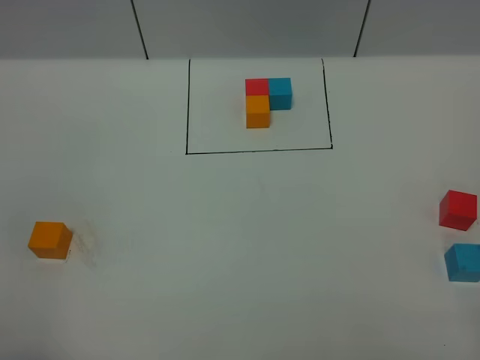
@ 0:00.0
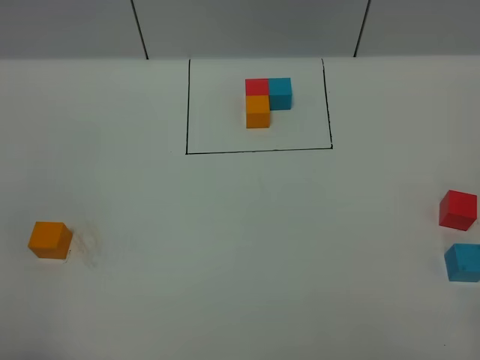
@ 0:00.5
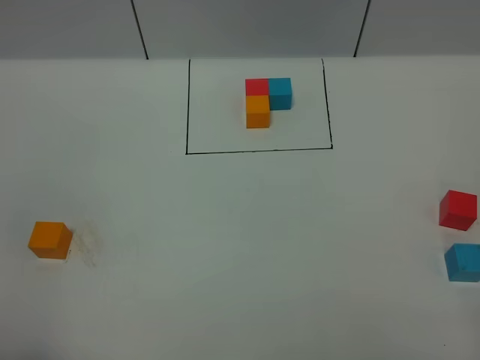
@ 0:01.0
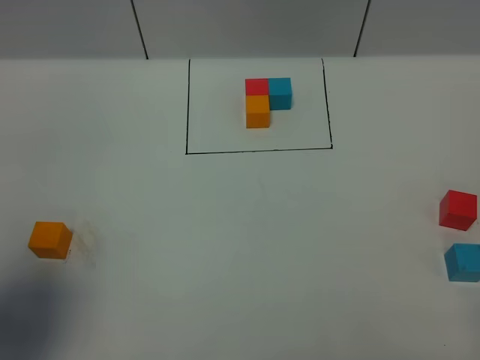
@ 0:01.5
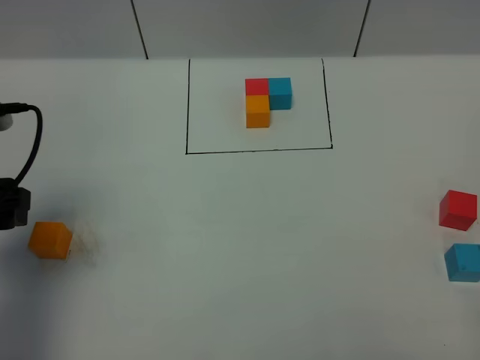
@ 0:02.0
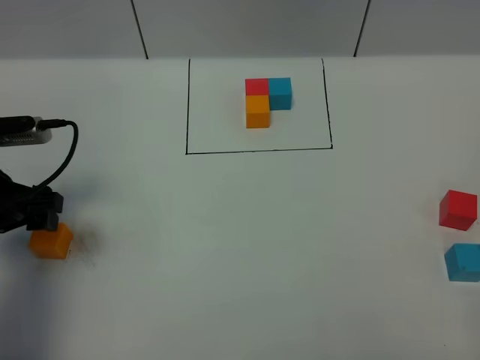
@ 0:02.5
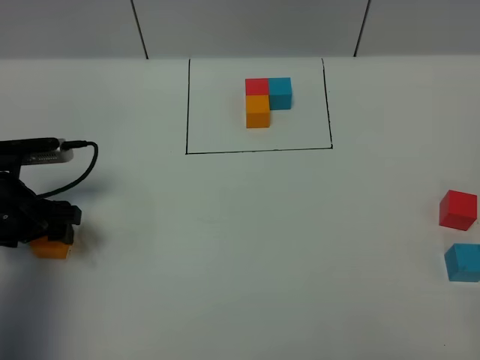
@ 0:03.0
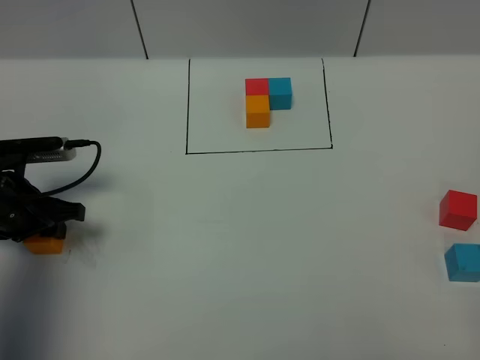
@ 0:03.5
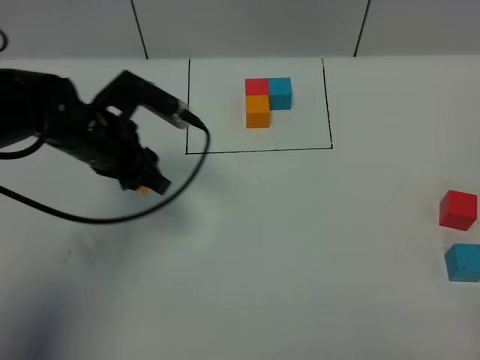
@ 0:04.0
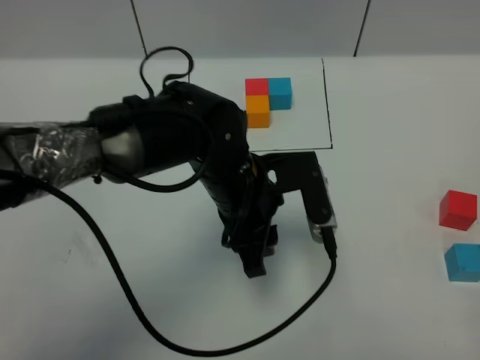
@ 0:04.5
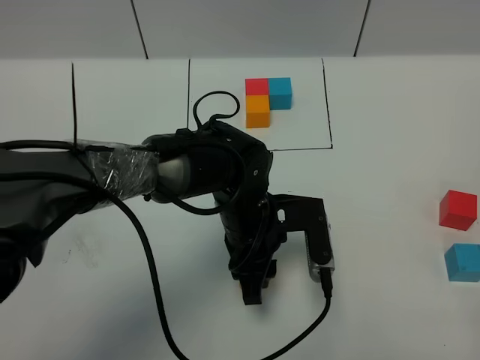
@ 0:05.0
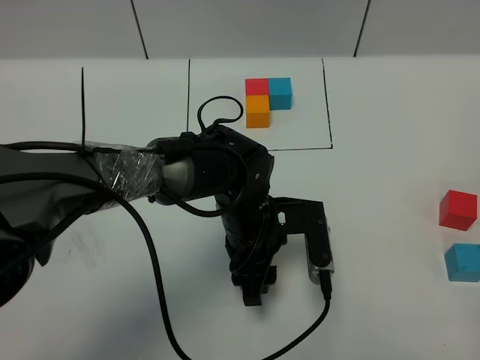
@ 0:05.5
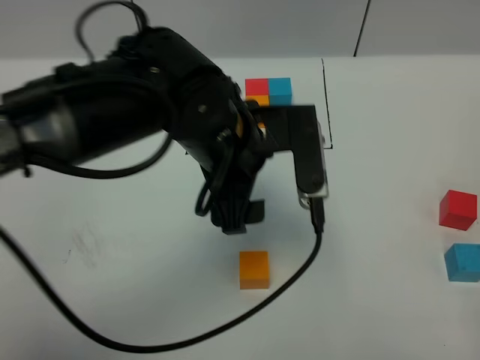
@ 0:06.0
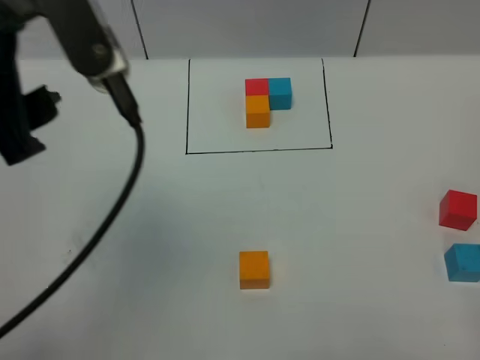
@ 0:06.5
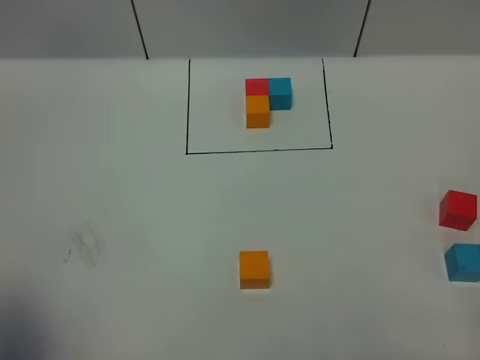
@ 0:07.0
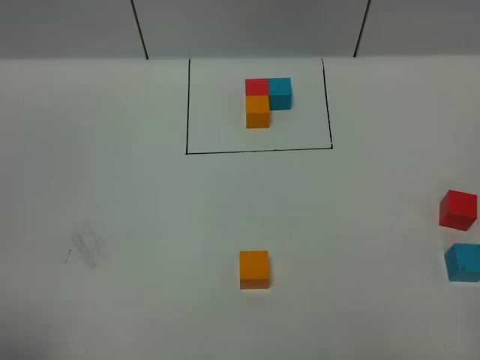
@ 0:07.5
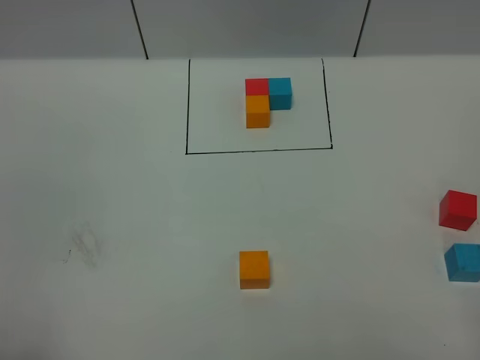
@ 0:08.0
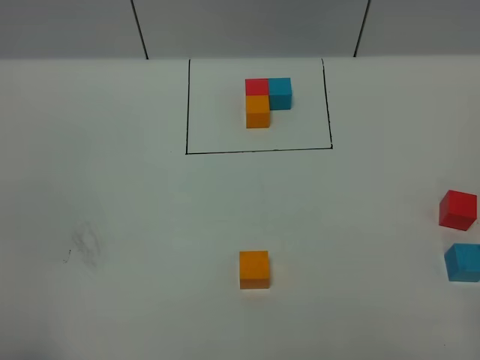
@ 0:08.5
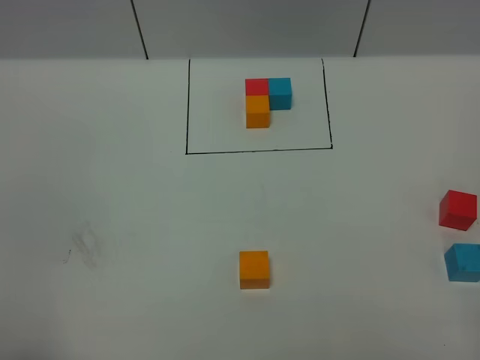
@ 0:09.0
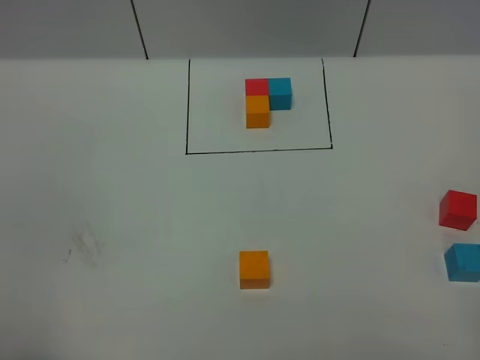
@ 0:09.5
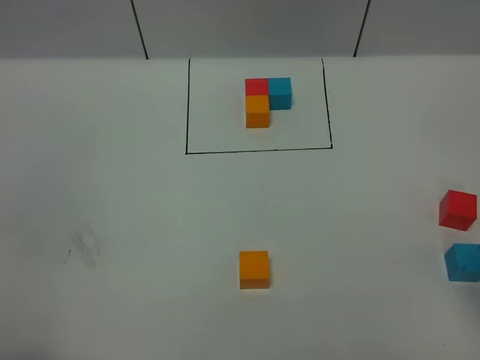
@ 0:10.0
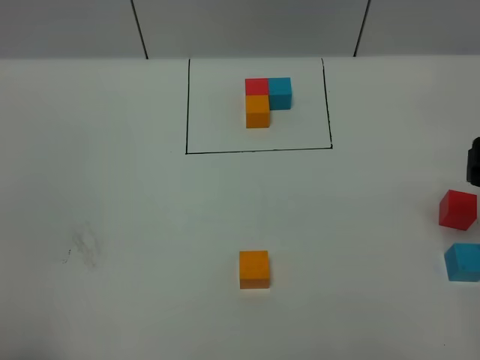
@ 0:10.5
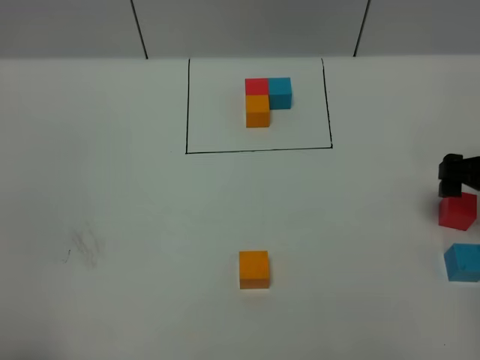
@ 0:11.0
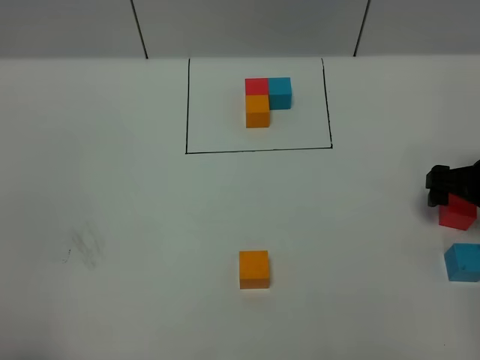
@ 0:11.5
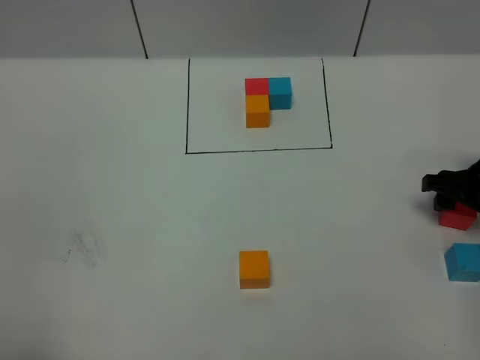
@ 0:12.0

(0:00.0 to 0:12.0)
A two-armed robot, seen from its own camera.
Task of the whole recording: According to the building block template in front, assemble the scattered blocks together.
Step, 0:02.0 - 0:05.5: Put the orange cube in the center of the table.
0:00.0 - 0:02.0: The left gripper travels forward by about 25 cm.
0:02.0 - 0:04.0: The left gripper shifts about 15 cm to the right and forward, and closes up.
0:04.0 - 0:06.0: The left gripper goes roughly 15 cm to the right, upward and backward, and opens its fingers.
0:06.0 - 0:08.0: The left gripper travels to the left and backward by about 40 cm, and closes up.
0:10.0 - 0:12.0: The right gripper shifts about 25 cm forward and downward, and closes its fingers.

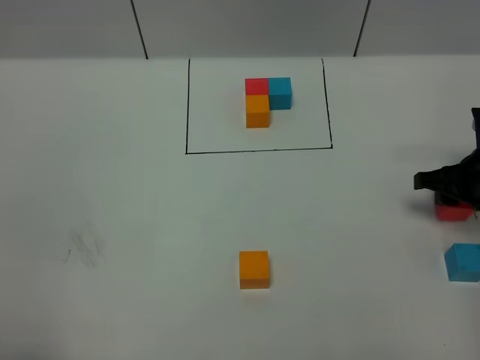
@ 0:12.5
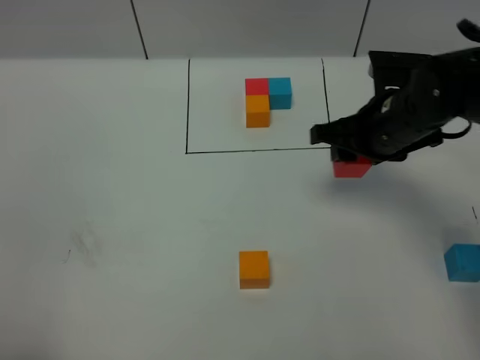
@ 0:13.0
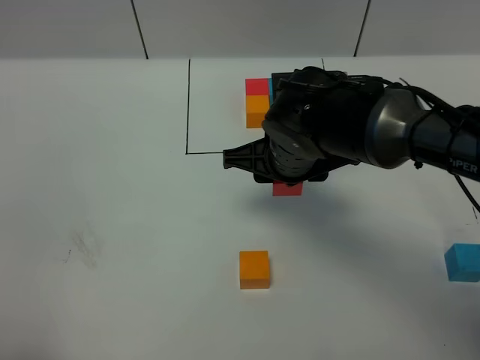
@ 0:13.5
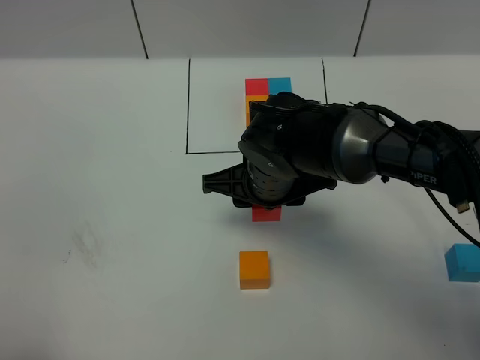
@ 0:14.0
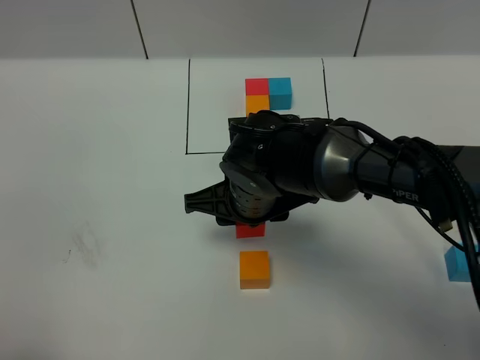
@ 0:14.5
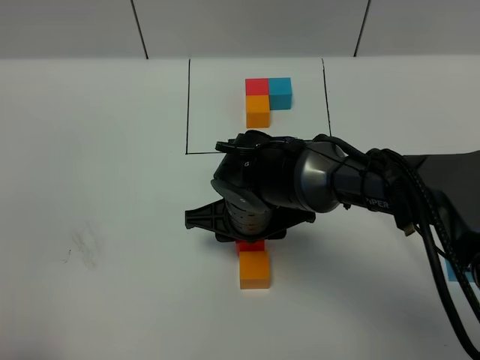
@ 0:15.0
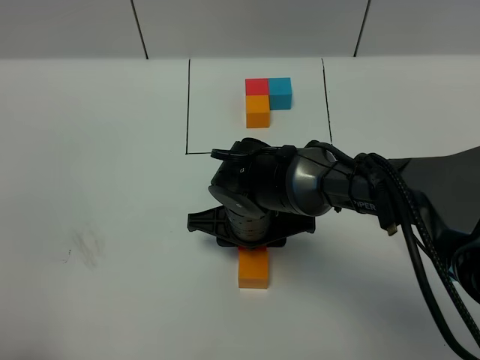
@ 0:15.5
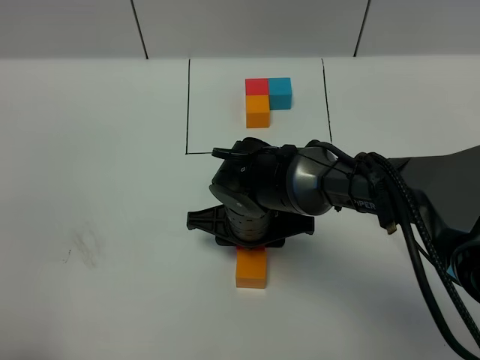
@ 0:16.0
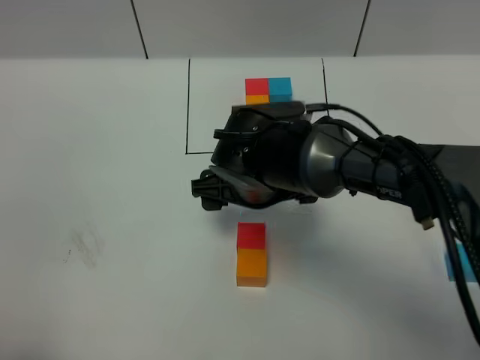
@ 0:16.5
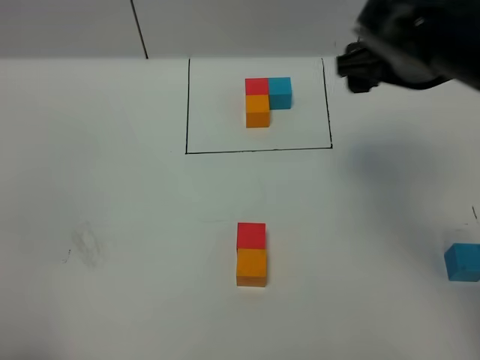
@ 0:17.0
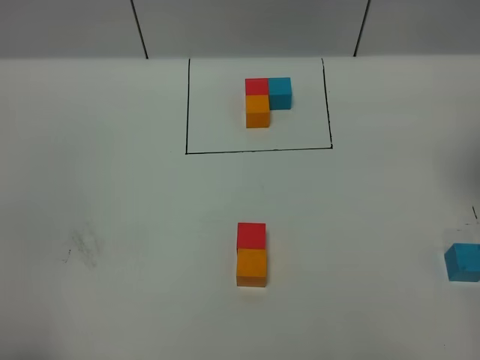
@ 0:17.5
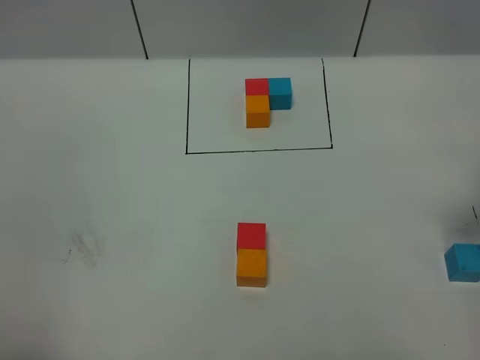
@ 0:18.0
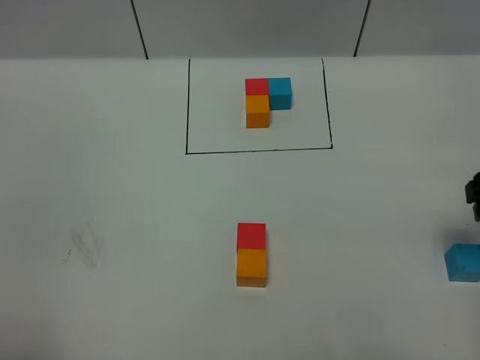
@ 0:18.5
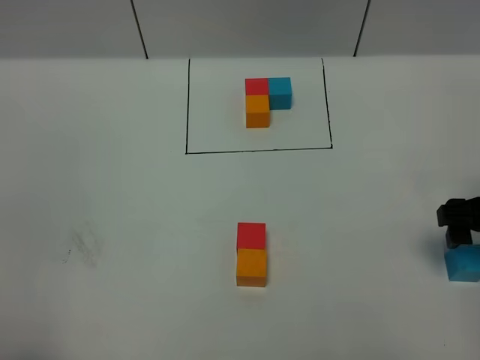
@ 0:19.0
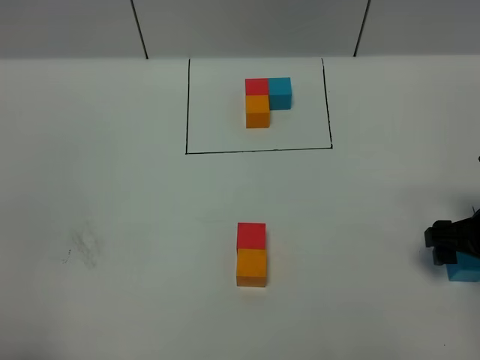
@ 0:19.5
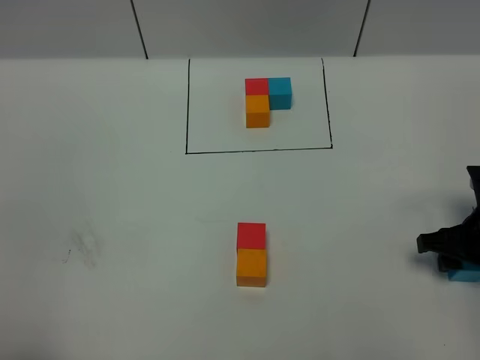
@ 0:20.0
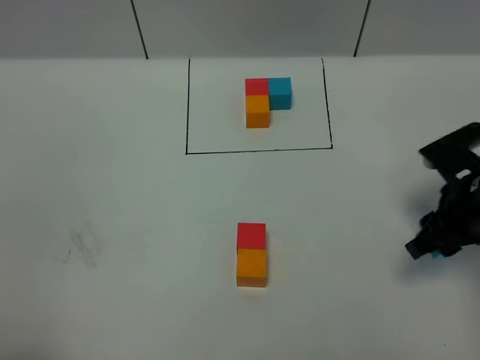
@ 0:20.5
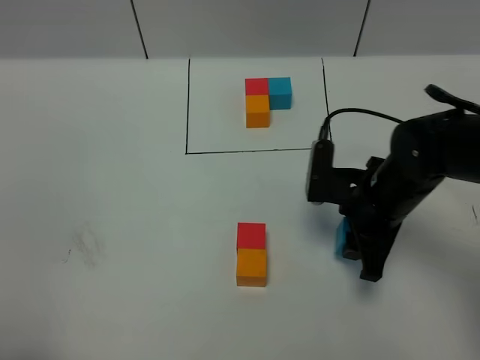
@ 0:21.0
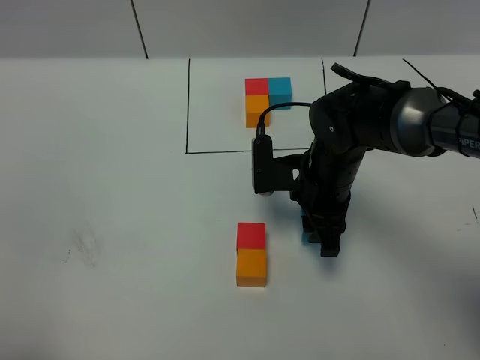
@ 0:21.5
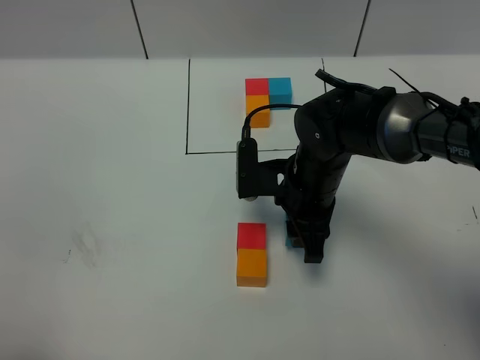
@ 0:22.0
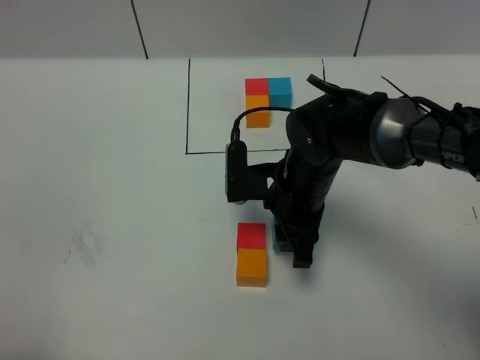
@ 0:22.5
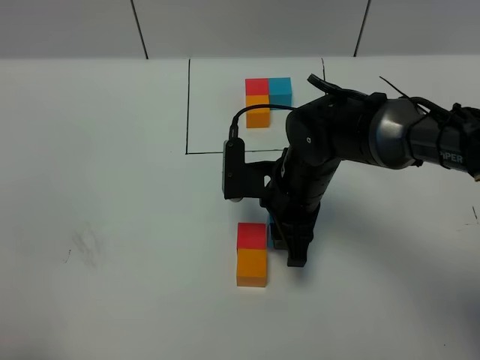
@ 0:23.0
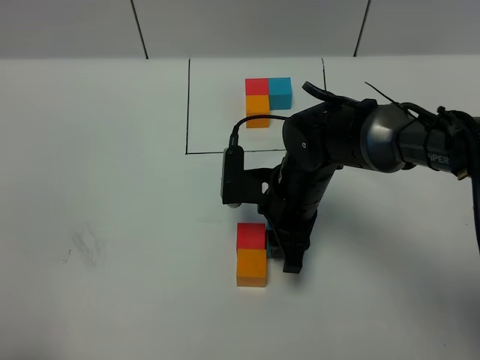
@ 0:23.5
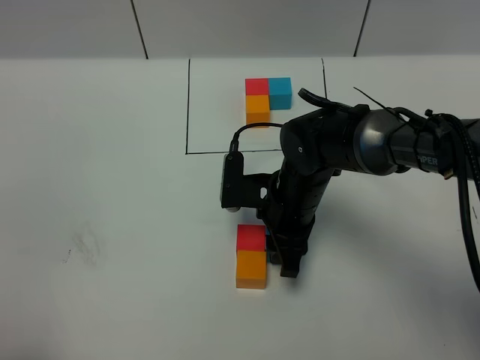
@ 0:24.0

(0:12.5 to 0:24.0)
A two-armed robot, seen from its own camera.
Task of the whole recording: According to the building block template in front, assemble the scattered blocks together.
Step, 0:12.5 - 0:16.0: Put the red cube on the behind of the orange cube.
0:12.5 - 0:14.5: The right gripper shifts about 30 cm to the left.
0:14.5 - 0:16.5: The right gripper opens up.
0:16.5 - 0:18.5: The right gripper goes about 30 cm to the right.
0:18.5 - 0:20.0: The right gripper travels downward by roughly 10 cm, and closes up.
0:20.0 - 0:22.0: The right gripper moves to the left, some 20 cm.
0:22.0 - 0:24.0: The grippers make only small movements.

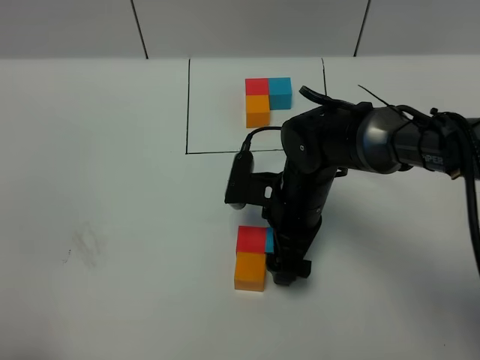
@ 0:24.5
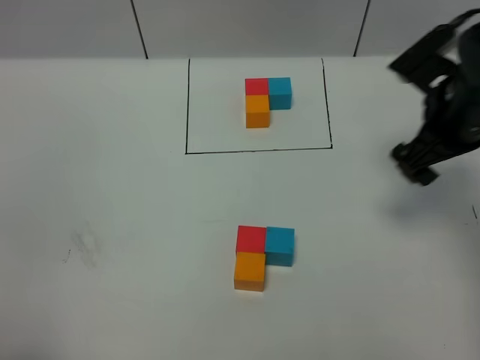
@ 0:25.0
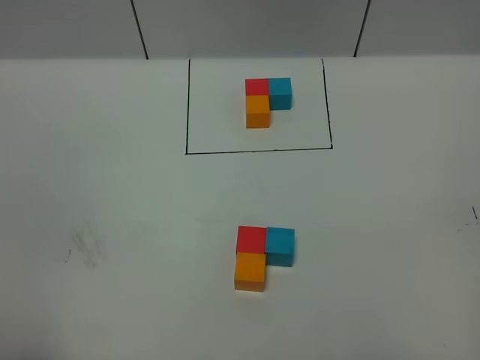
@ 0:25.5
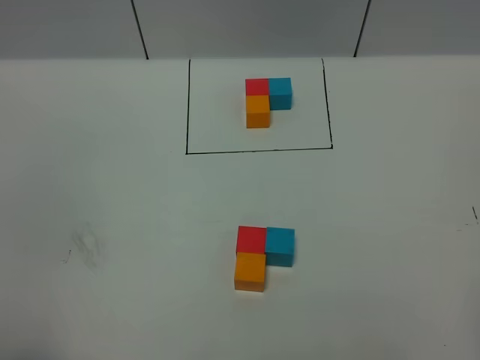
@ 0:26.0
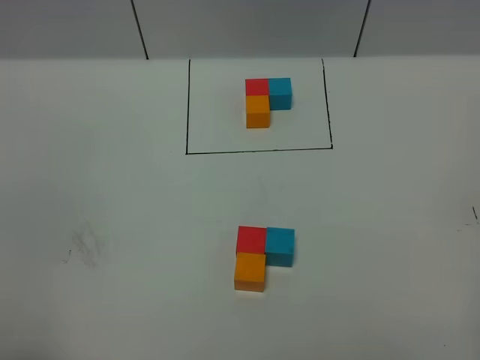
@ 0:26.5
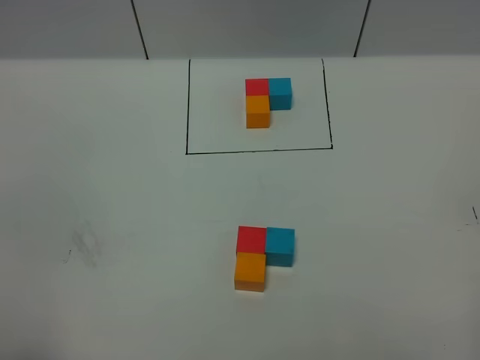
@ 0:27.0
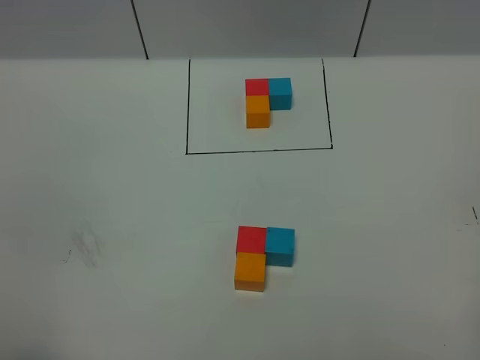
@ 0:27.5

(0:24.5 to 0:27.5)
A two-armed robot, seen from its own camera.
Task of the whole recording: According to the building block template in front, assemble the scattered blocks together.
0:24.5 - 0:26.0: The right gripper is displaced backward, to the right and upward by approximately 40 cm.
